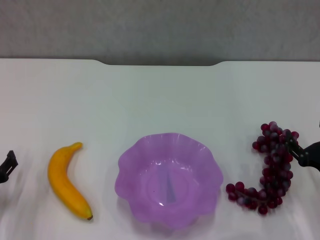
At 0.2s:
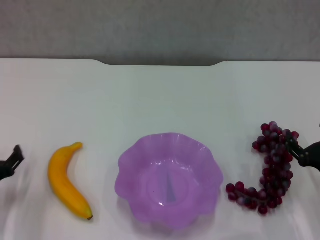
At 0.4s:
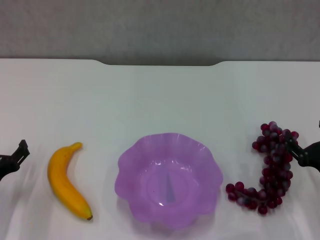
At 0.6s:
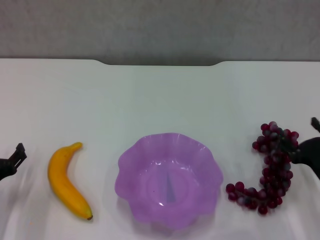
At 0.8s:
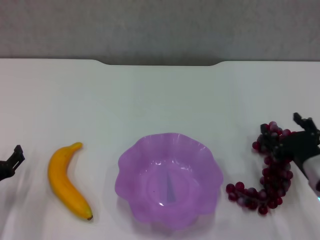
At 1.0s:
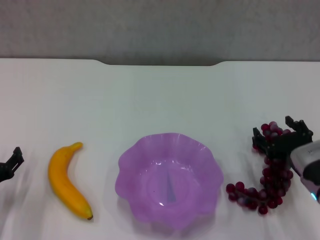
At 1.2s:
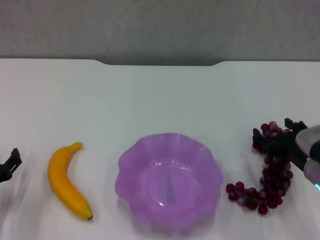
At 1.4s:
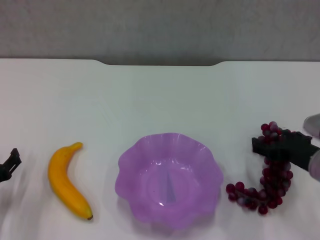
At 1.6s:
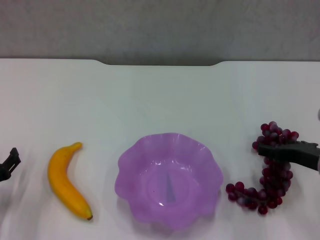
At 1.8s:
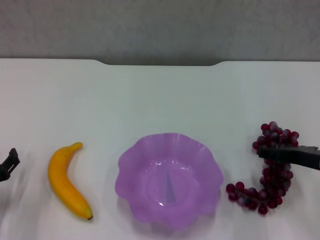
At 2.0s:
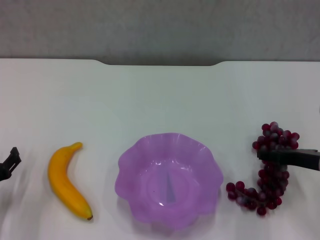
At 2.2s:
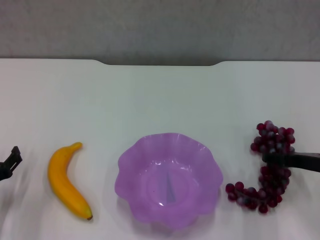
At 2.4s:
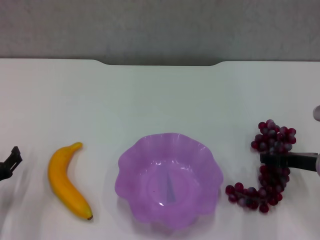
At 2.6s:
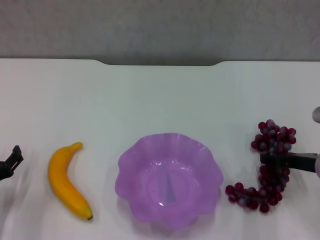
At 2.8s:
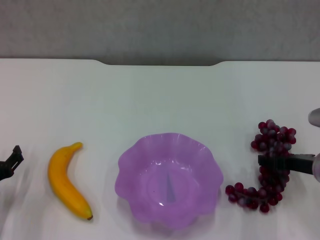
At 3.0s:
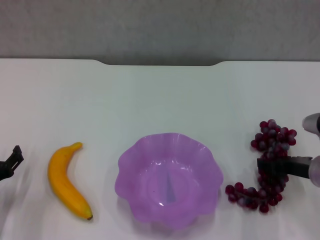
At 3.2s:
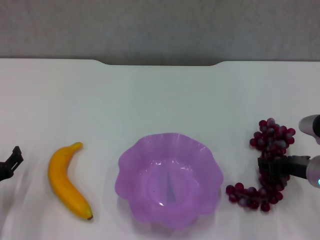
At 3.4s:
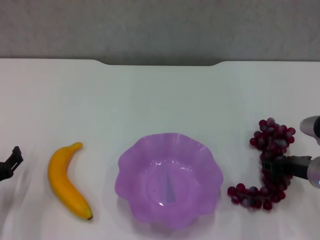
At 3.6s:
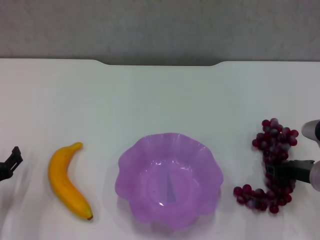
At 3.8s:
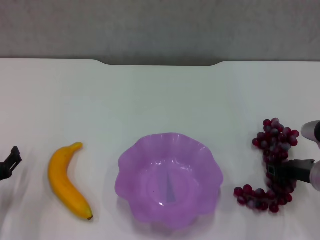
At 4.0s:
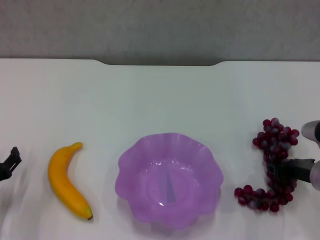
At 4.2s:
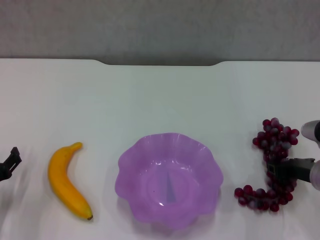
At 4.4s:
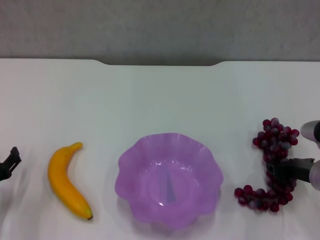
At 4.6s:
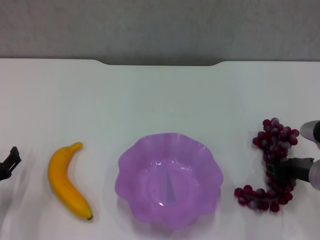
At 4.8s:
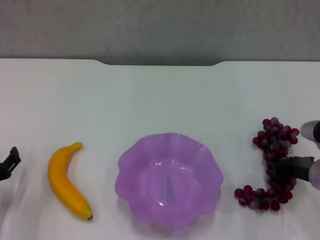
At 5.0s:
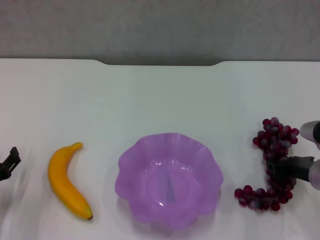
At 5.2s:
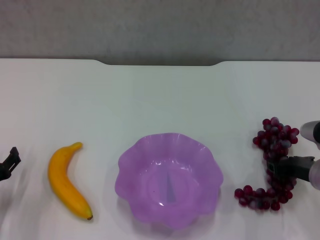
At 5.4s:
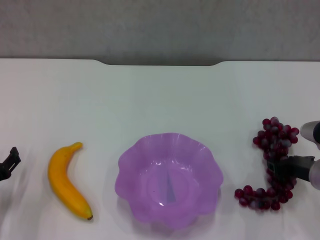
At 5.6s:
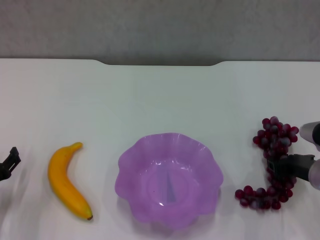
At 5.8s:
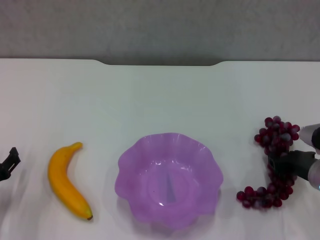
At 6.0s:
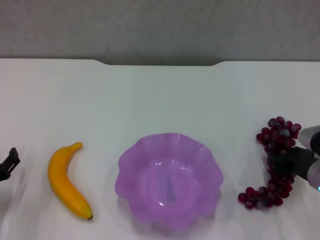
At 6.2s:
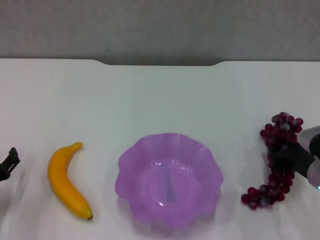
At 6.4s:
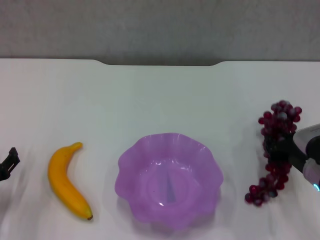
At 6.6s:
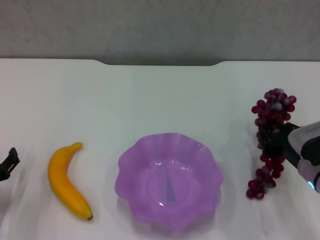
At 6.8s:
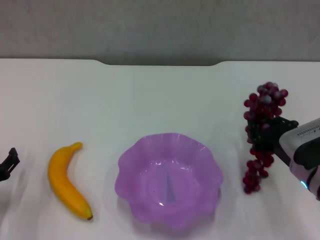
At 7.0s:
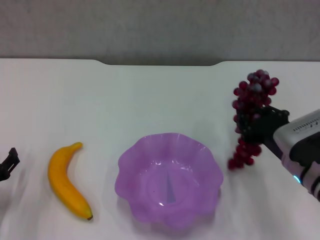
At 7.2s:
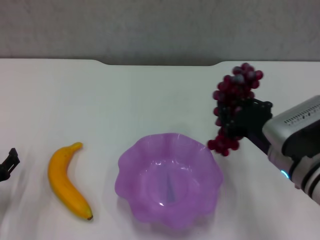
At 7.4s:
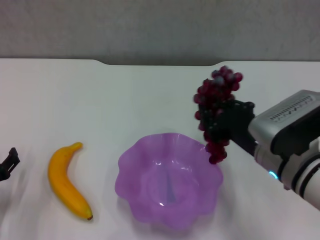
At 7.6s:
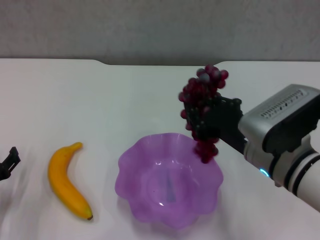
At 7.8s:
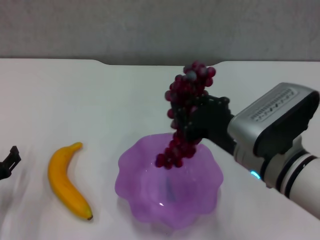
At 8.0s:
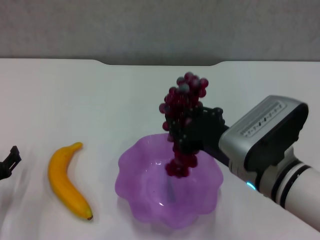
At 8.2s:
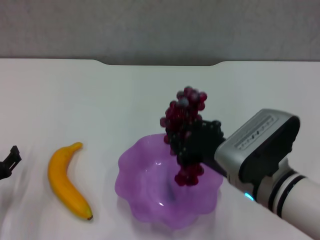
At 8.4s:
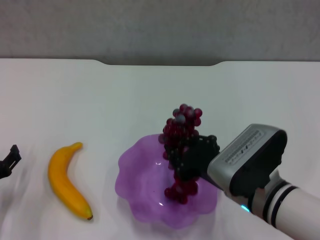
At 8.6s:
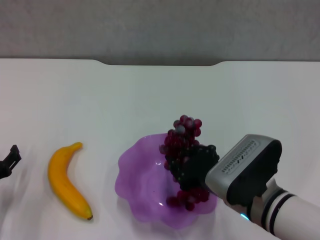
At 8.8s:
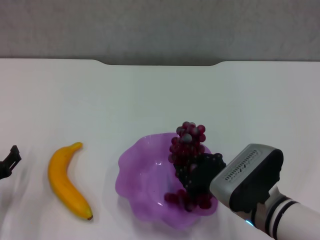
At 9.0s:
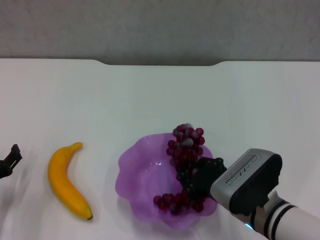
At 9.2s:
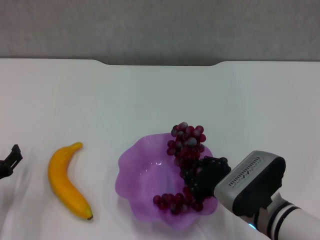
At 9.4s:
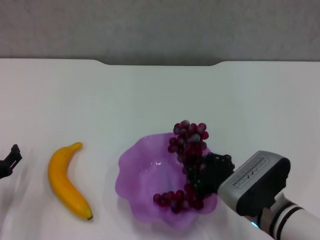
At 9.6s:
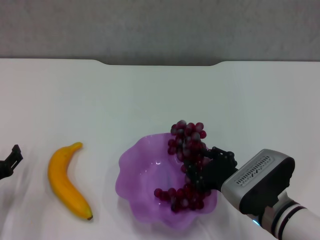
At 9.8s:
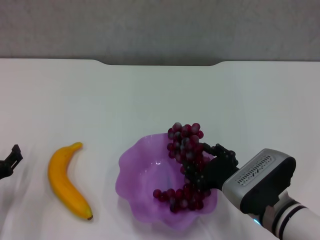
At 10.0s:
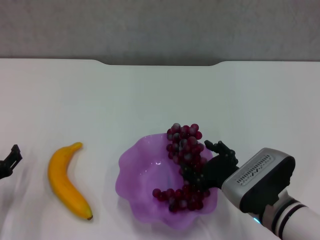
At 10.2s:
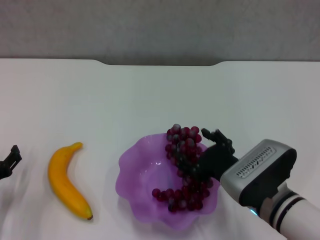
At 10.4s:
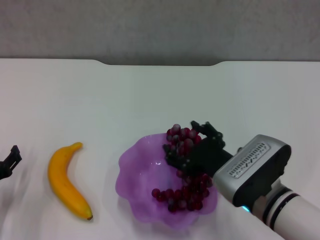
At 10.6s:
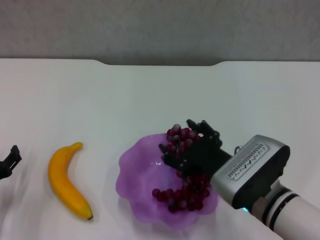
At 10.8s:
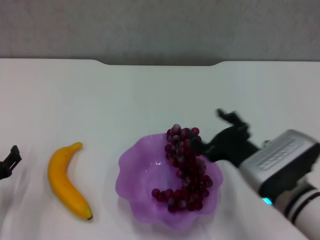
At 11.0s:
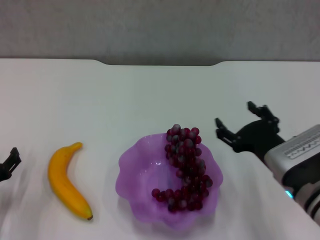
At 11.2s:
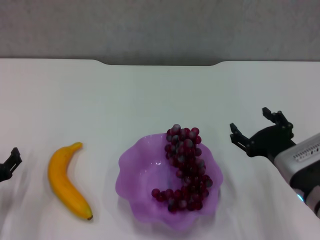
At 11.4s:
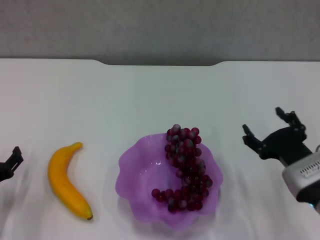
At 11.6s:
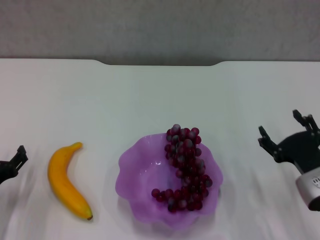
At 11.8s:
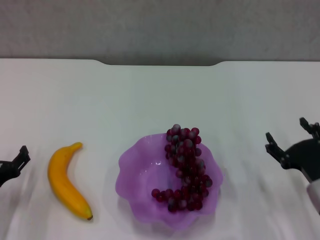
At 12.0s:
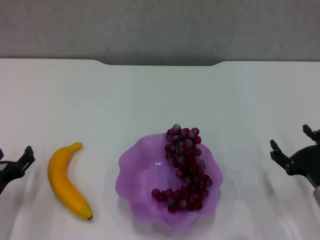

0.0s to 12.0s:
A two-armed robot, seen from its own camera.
Step, 0.0s to 3.4s: Grasp the grape with right gripper.
Step, 3.6s to 10.6s: Place the grape in the purple plate with right gripper.
0.0s to 1.6s: The right gripper goes some 5 cm upward.
1.6s to 3.0s: The grippers make only small movements.
3.0s to 4.4s: The right gripper closes up.
4.4s to 6.0s: The grippers stay close to where they were, moving slightly.
6.0s to 7.6s: The right gripper travels to the left and upward by roughly 15 cm.
7.6s to 9.0s: The right gripper moves downward, some 10 cm.
9.0s to 10.4s: The right gripper opens its fingers.
10.4s to 12.0s: The right gripper is displaced to the right by approximately 15 cm.

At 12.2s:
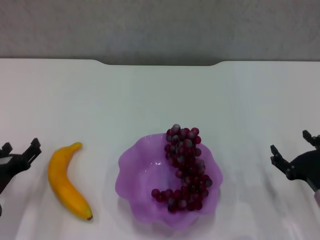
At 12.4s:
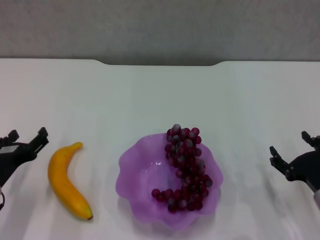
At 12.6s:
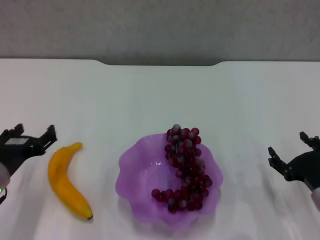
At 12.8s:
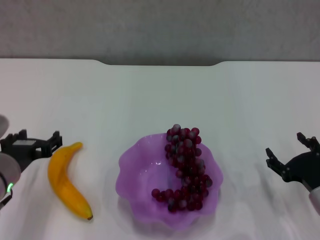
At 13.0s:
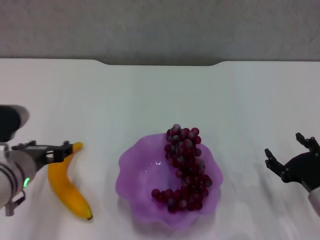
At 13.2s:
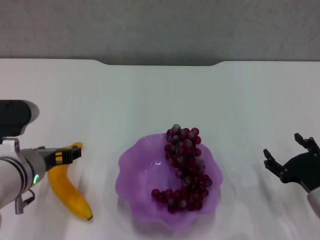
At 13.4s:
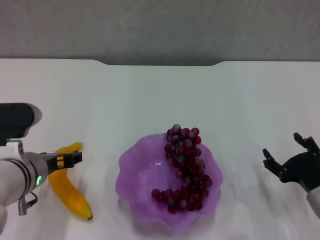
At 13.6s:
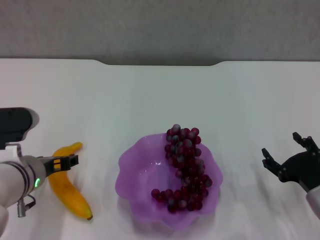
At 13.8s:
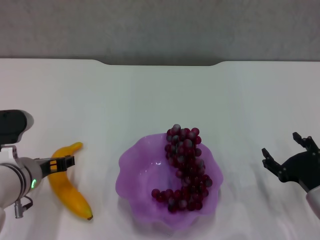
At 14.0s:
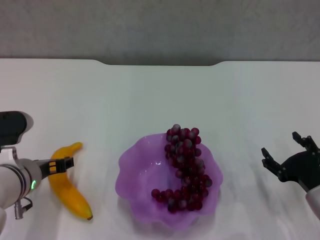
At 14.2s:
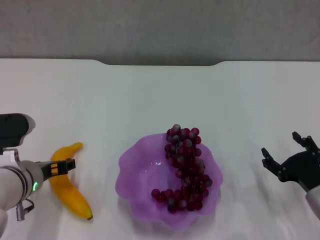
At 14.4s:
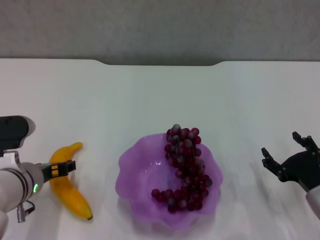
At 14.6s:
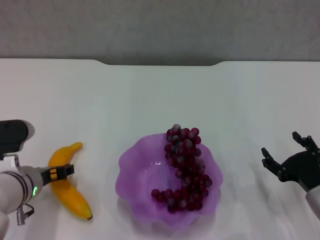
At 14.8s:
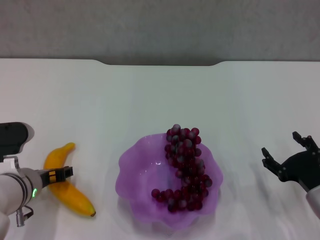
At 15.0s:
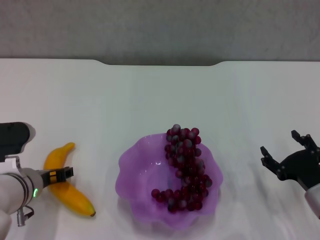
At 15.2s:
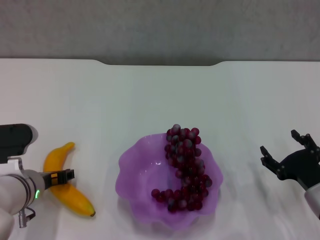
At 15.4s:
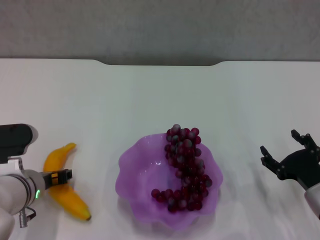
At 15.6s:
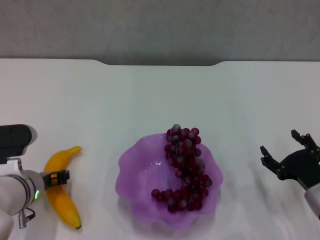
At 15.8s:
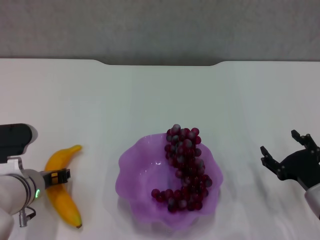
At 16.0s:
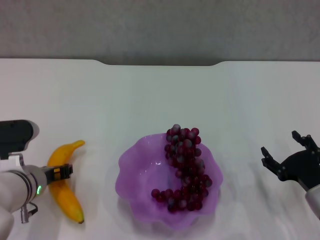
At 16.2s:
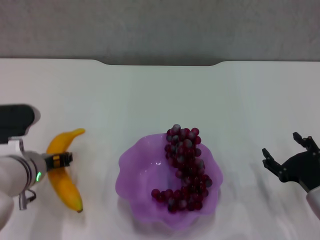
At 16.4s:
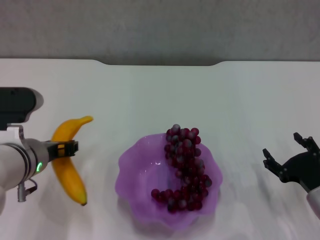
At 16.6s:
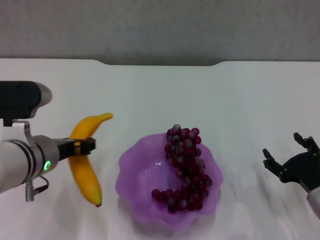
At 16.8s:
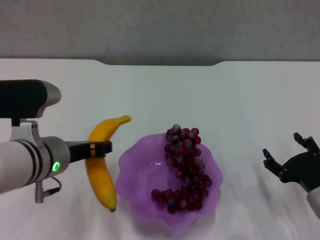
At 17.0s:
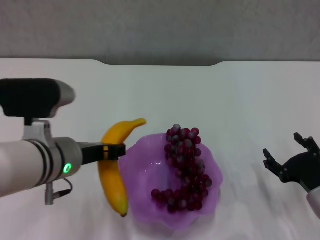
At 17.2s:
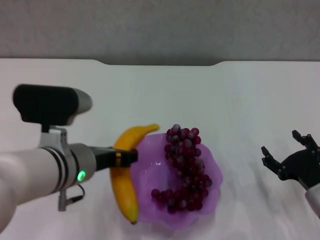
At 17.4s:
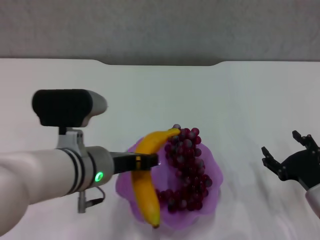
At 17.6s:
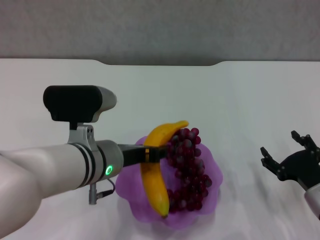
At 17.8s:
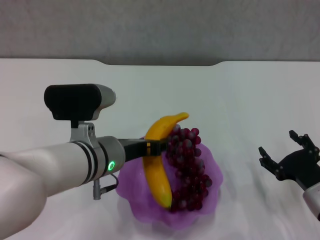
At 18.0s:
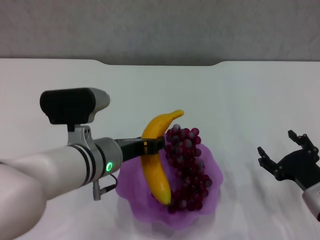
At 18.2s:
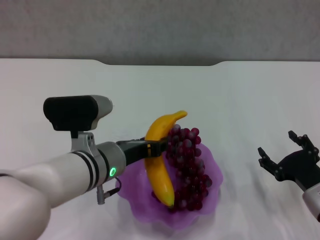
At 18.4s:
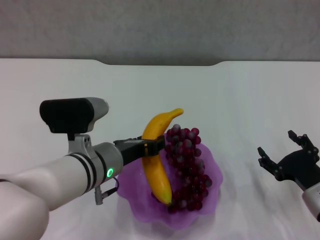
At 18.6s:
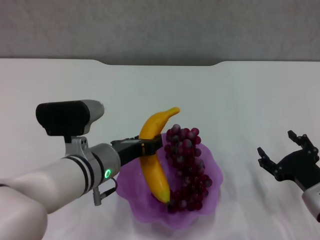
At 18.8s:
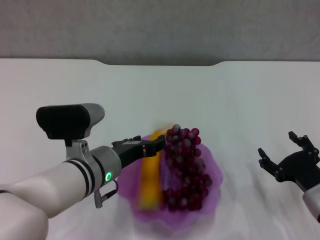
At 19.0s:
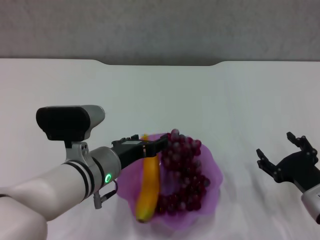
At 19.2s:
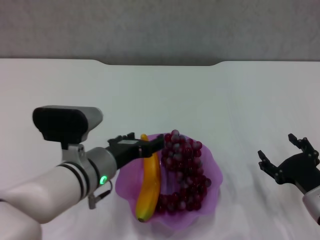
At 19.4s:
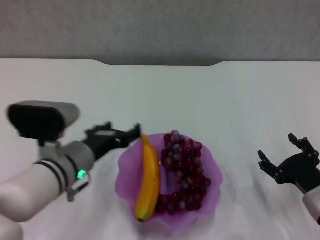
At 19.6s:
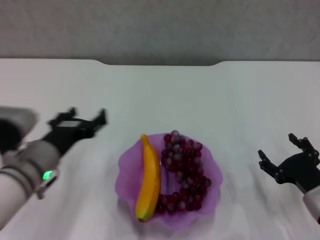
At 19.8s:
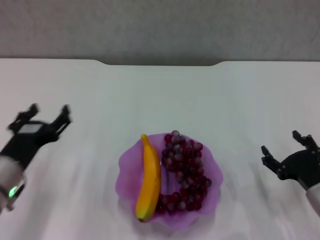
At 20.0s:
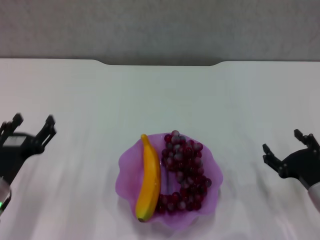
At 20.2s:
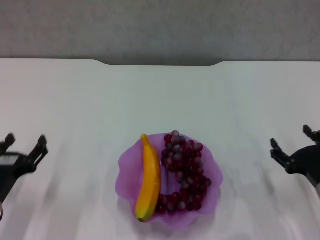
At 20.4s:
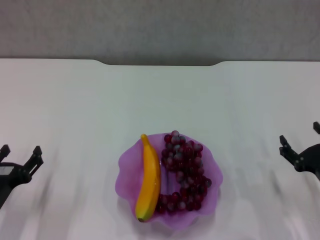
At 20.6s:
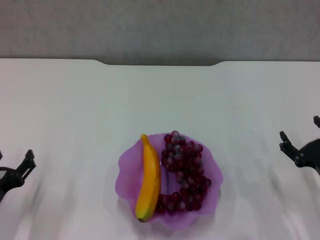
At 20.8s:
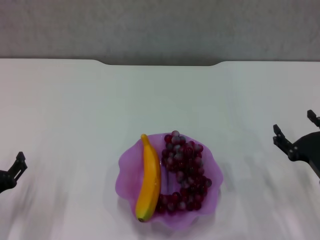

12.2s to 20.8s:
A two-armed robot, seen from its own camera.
Step, 12.2s to 15.4s: Grasp the banana with left gripper.
Step, 15.6s to 19.2s: Place the banana in the purple plate with left gripper.
12.2s to 13.6s: The left gripper is displaced to the right and upward by about 10 cm.
13.6s to 15.0s: There are only small adjustments of the grippers.
15.0s to 16.6s: The left gripper shifts approximately 10 cm upward, and closes.
16.6s to 18.0s: The left gripper moves to the right, about 5 cm.
18.0s to 19.4s: The left gripper opens.
19.4s to 20.8s: The left gripper heads to the left, downward and backward, covering approximately 20 cm.
